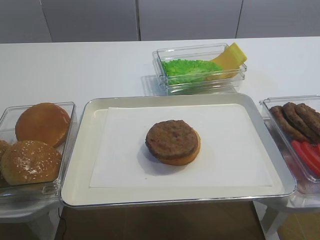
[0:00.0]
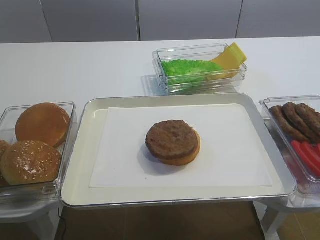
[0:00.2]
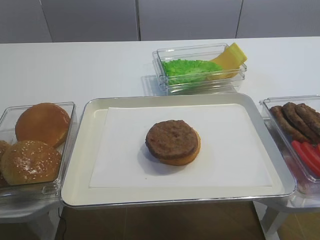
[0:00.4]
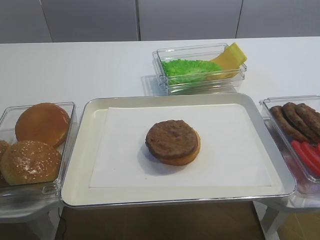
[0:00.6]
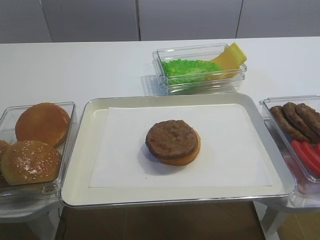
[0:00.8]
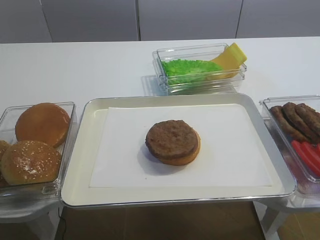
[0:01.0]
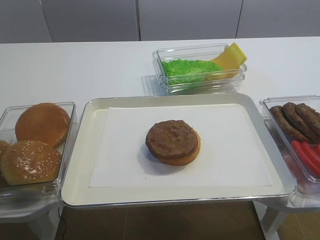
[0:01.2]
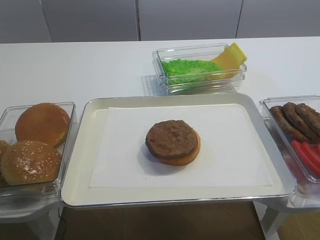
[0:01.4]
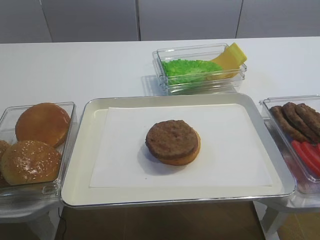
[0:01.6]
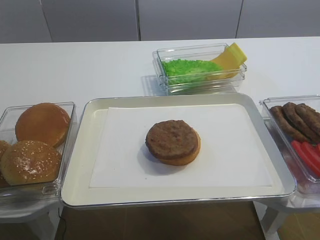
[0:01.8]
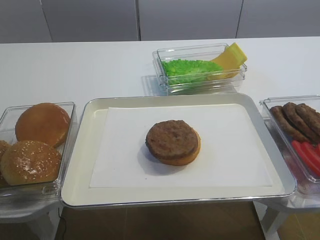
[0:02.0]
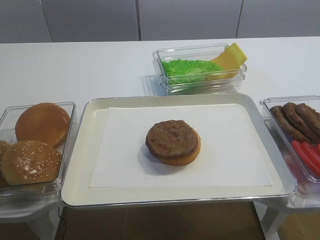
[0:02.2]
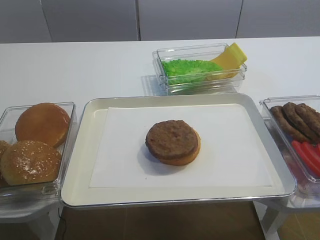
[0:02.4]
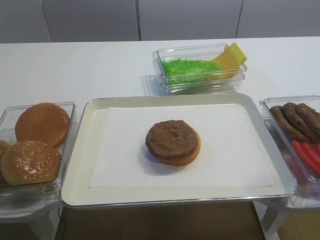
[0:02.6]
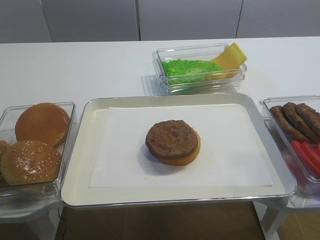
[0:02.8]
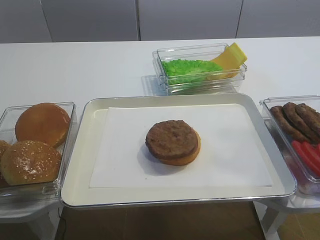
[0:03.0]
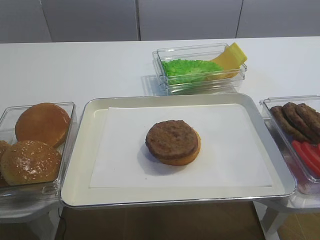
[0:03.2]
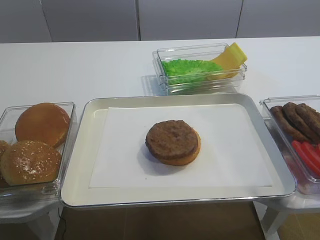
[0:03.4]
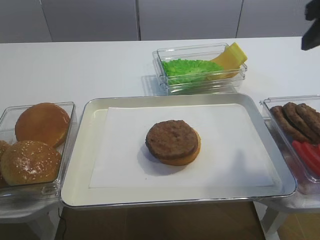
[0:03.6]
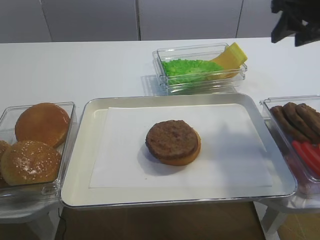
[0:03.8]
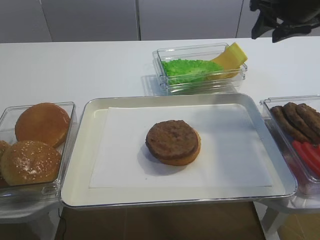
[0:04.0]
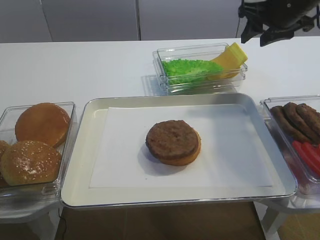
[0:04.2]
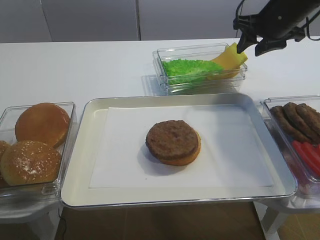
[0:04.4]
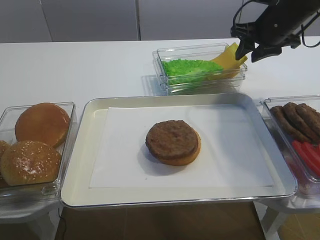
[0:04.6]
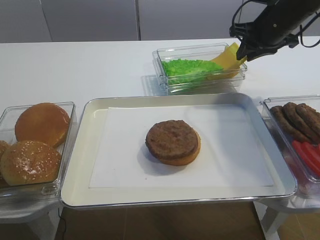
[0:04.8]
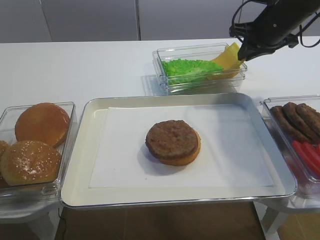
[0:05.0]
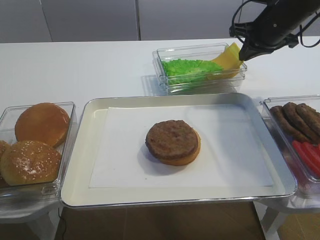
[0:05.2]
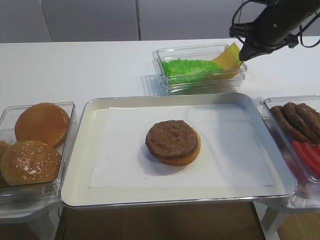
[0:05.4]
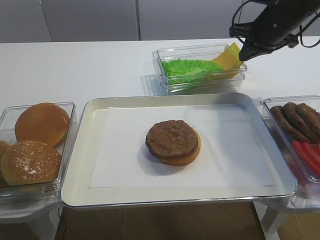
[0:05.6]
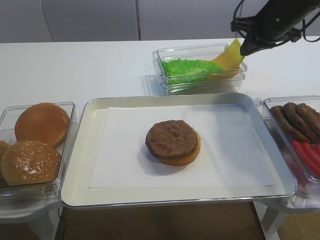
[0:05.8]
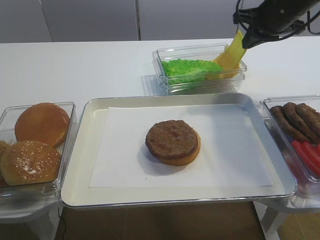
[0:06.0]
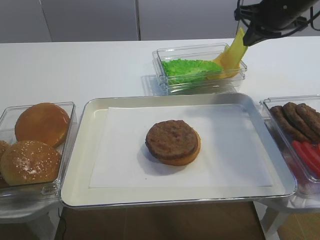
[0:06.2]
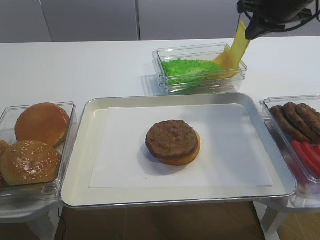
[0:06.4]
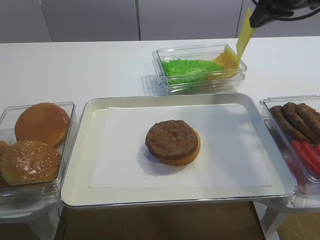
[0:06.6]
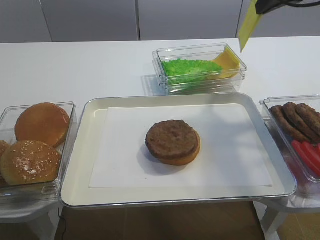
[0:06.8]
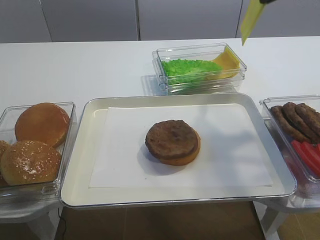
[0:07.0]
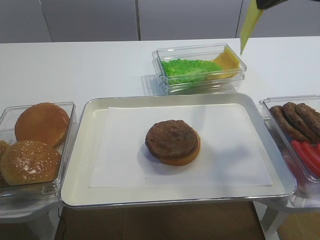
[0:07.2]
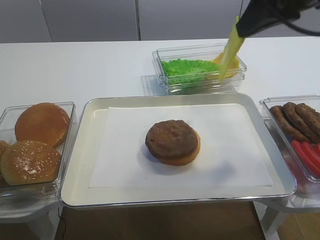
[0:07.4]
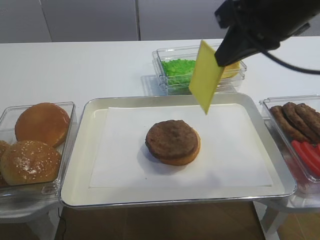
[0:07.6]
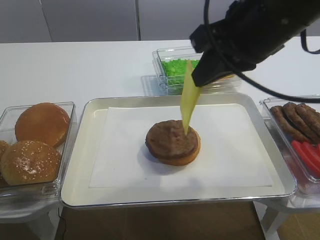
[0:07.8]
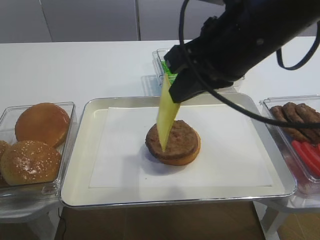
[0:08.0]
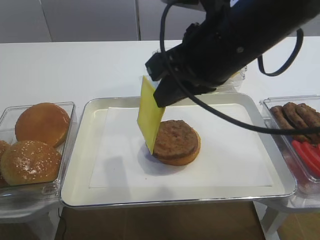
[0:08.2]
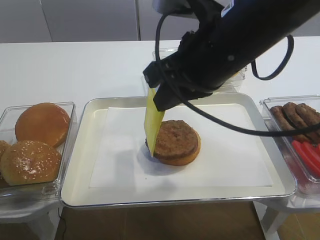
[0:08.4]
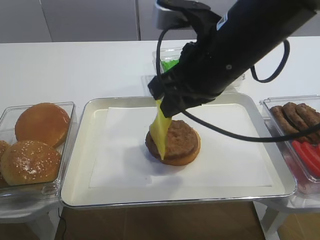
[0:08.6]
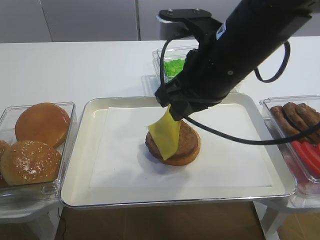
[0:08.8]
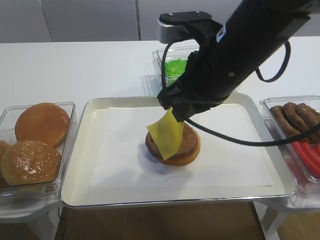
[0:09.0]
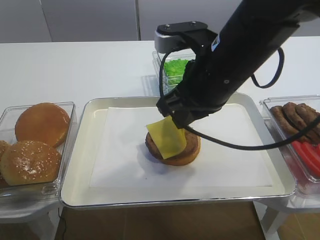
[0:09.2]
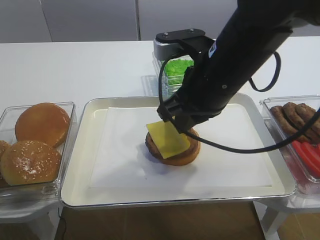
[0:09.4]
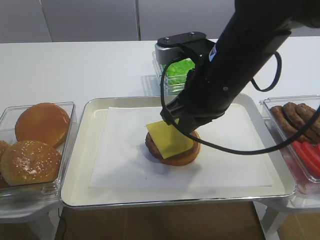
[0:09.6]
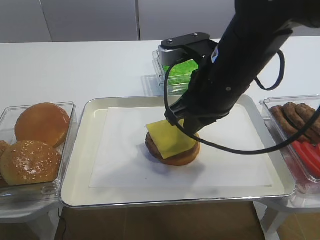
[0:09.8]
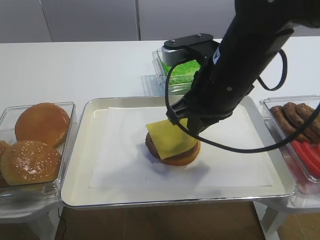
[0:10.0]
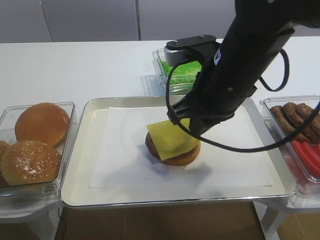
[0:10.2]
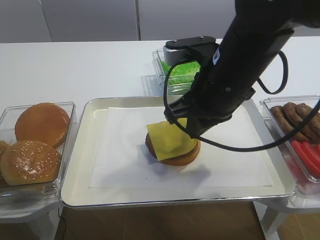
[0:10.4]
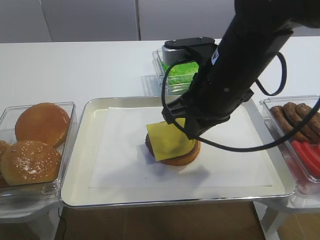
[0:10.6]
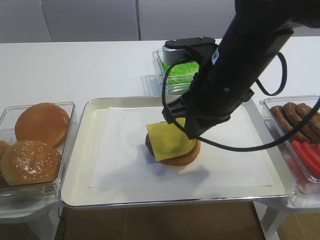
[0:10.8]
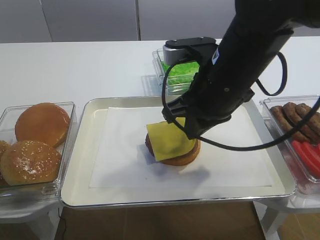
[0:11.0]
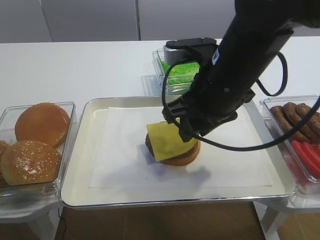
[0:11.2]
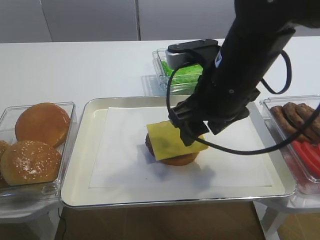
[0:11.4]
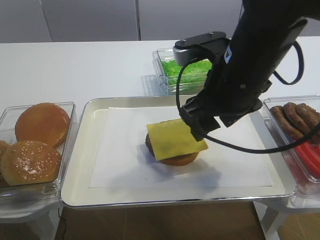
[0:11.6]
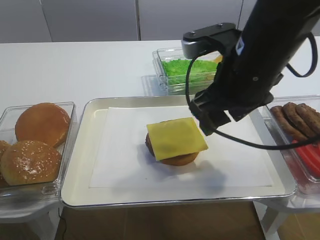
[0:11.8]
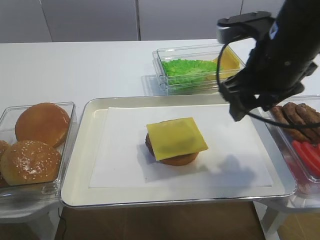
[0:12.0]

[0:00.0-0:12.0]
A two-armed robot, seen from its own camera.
Step, 0:00.0 to 0:06.0: Pick up the cheese slice with the right gripper.
Step, 0:06.2 to 0:11.4: Place the cheese slice on the cutlet with the right gripper.
0:03.0 to 0:04.4: The right gripper is displaced forward by approximately 35 cm.
0:04.4 to 0:06.0: The right gripper closes its fingers.
0:06.0 to 0:07.6: The right gripper goes some 20 cm backward and to the left.
0:07.6 to 0:09.0: The right gripper goes roughly 10 cm downward and to the left.
0:09.0 to 0:10.4: The grippers stay close to where they were, moving slightly.
0:10.4 to 0:12.0: The right gripper moves to the right, approximately 5 cm, and opens.

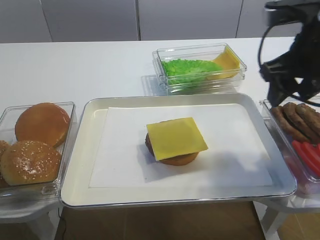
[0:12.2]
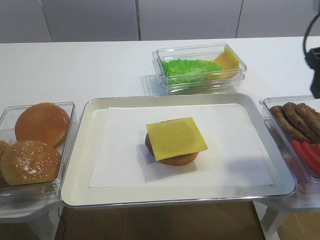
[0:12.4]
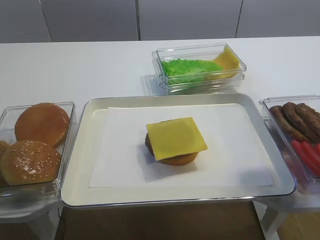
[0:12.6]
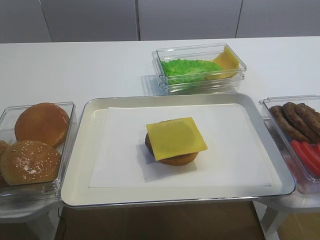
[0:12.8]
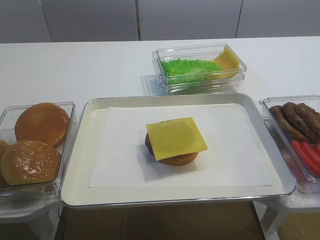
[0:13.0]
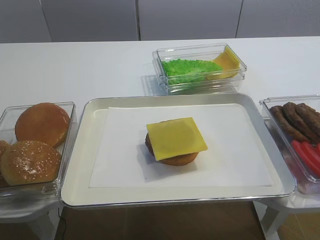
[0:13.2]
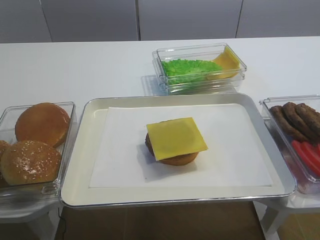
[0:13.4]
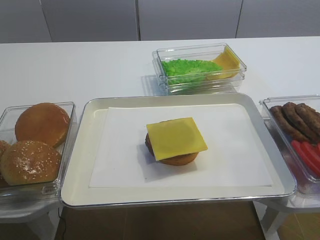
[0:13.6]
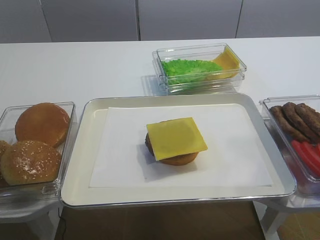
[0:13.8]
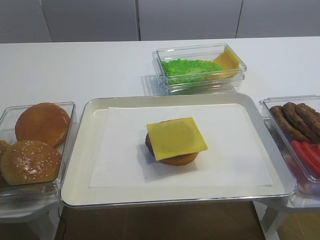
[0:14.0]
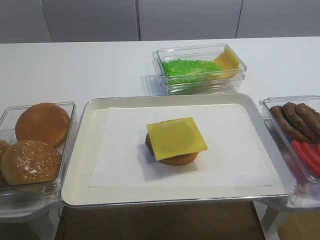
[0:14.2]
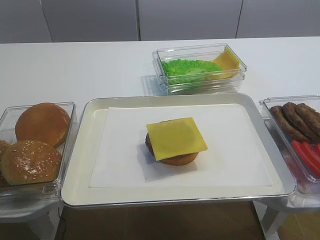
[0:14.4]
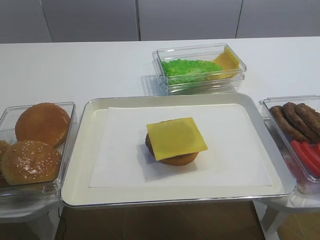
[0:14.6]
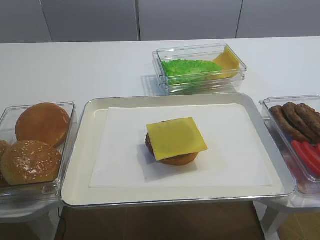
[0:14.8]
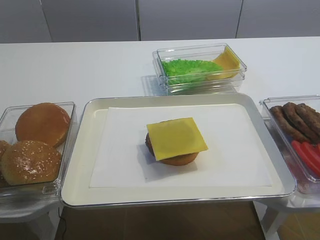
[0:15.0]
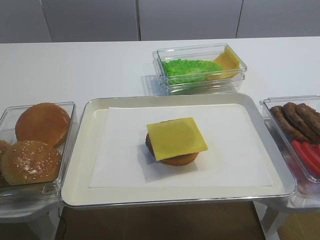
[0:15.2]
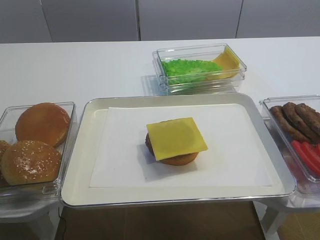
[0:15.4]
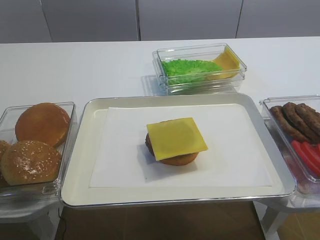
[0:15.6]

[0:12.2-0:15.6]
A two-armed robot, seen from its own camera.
0:12.2 to 0:13.8: The right gripper goes about 20 cm backward.

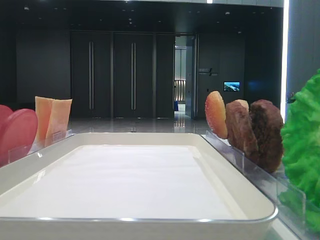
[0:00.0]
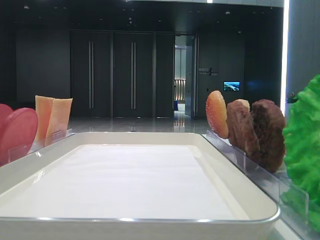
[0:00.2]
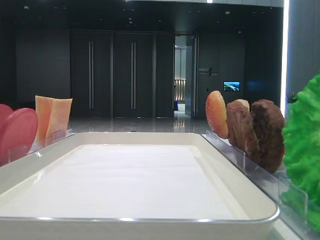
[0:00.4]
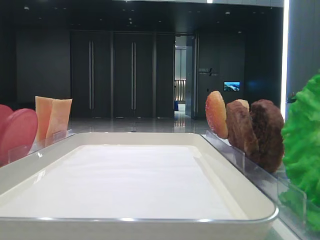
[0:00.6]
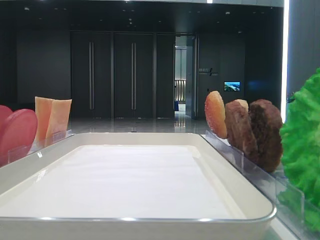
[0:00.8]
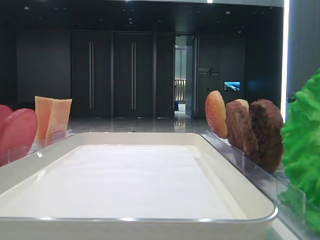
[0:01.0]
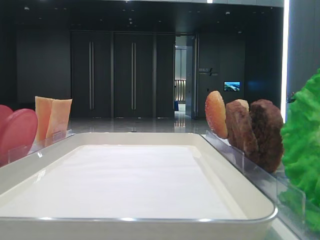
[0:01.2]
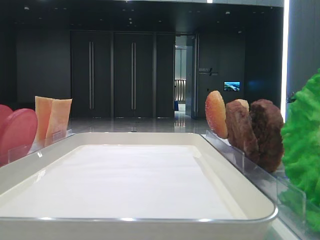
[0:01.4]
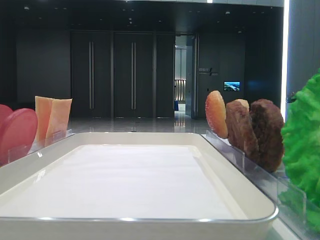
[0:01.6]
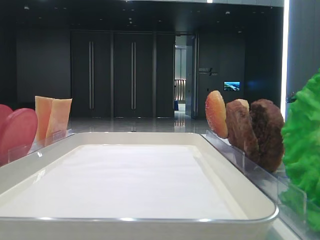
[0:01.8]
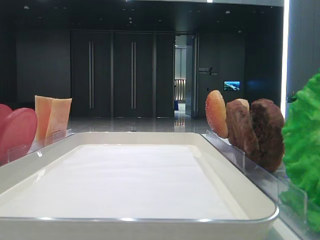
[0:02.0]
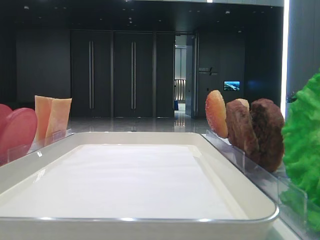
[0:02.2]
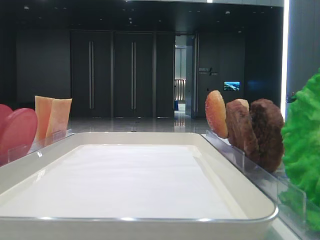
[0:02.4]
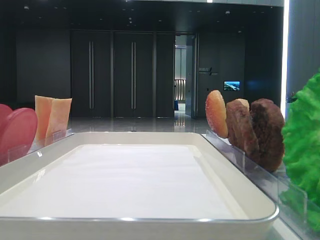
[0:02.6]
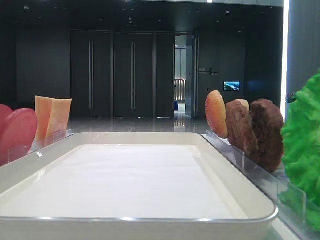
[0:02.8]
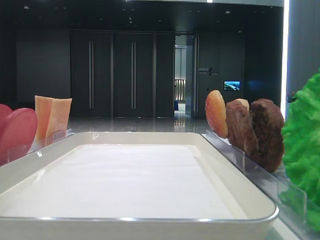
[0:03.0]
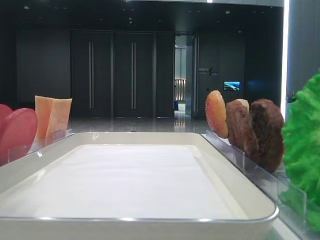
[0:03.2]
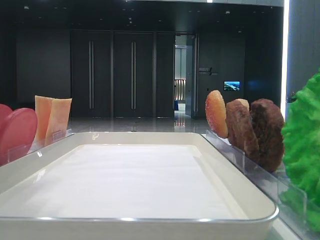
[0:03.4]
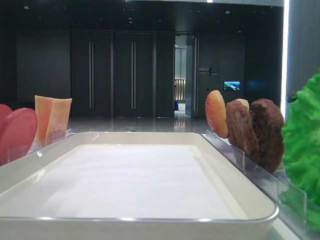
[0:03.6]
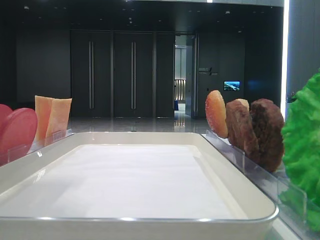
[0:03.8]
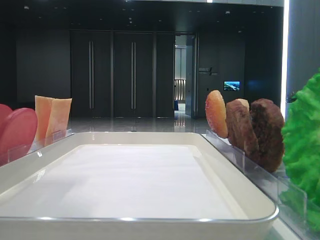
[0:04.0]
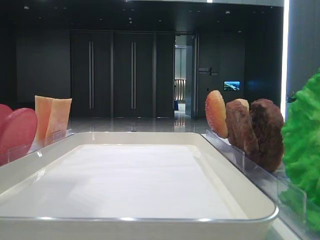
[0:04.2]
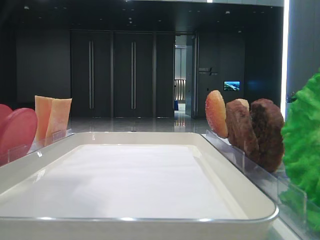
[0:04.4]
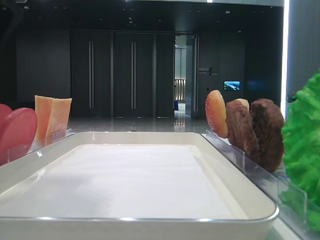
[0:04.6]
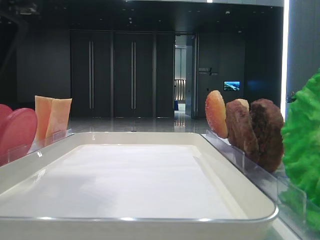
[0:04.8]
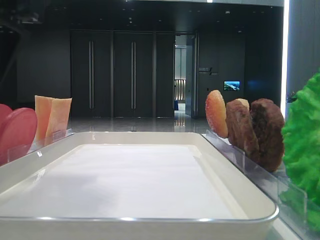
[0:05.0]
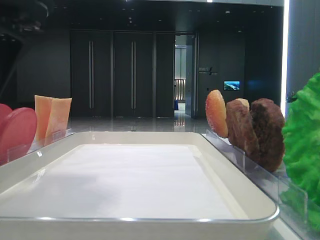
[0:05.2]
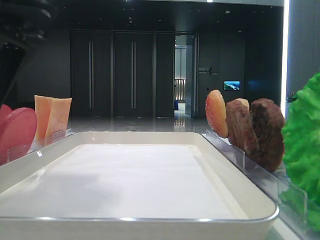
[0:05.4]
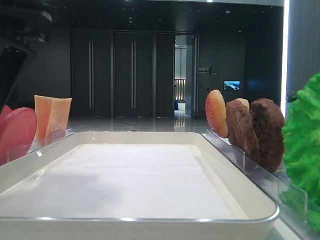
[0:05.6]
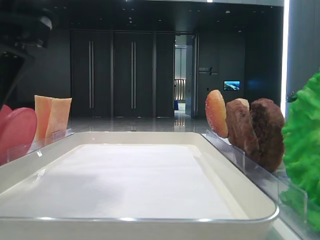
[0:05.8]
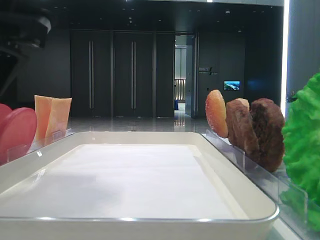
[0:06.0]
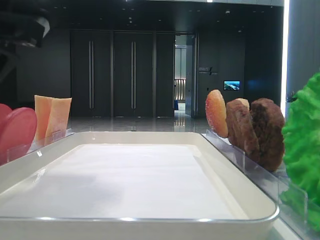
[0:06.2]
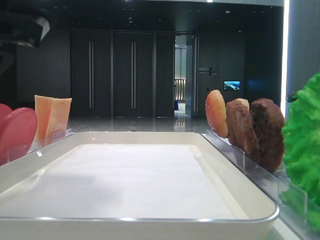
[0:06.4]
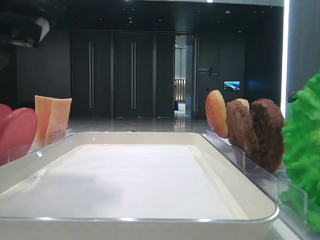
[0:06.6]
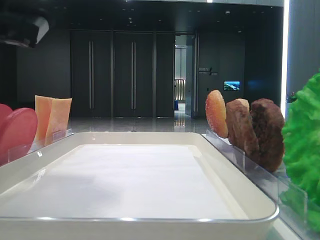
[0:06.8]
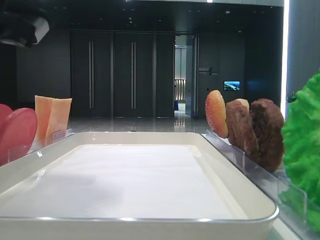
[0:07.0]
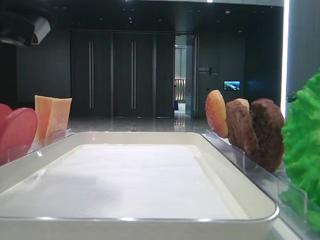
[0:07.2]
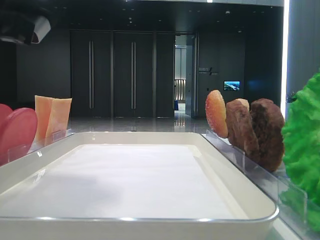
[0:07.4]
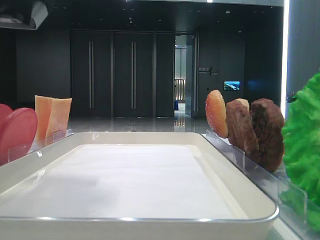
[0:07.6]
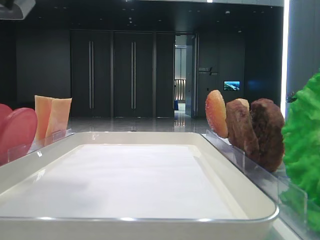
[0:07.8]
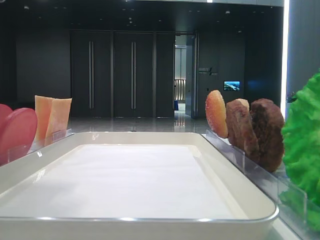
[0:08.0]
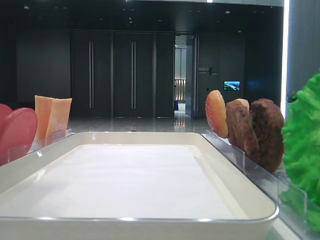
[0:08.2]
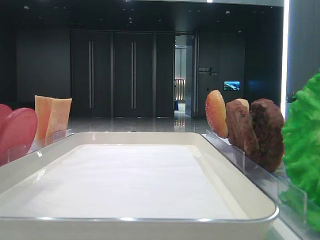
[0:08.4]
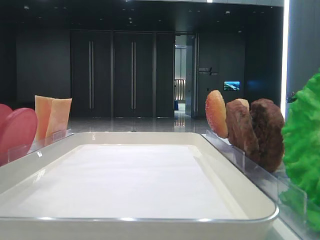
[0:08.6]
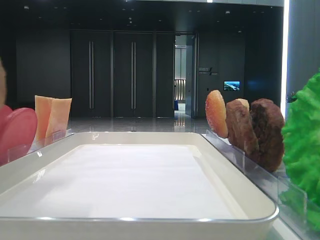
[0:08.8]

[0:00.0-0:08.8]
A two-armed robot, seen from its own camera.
Step, 0:00.0 to 0:06.2: Pick up the bottom bread slice with the left hand.
0:03.0 to 0:04.4: The left gripper moves to the right and downward, some 15 cm.
0:07.4 to 0:08.8: The left gripper travels upward by about 5 cm.
